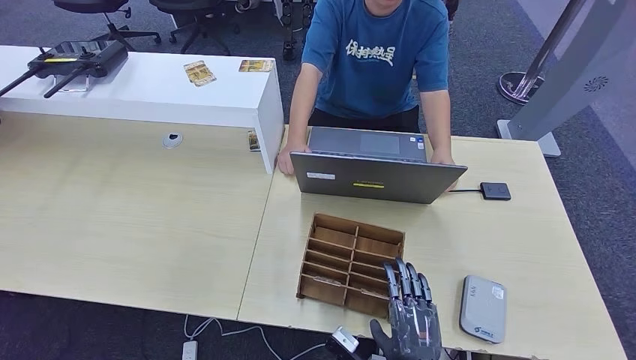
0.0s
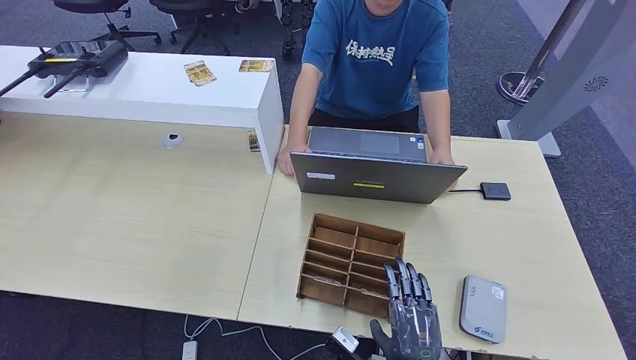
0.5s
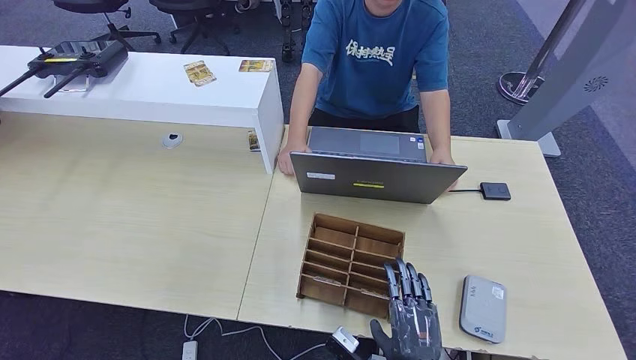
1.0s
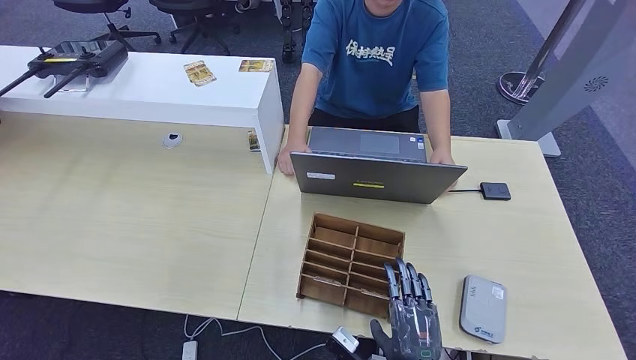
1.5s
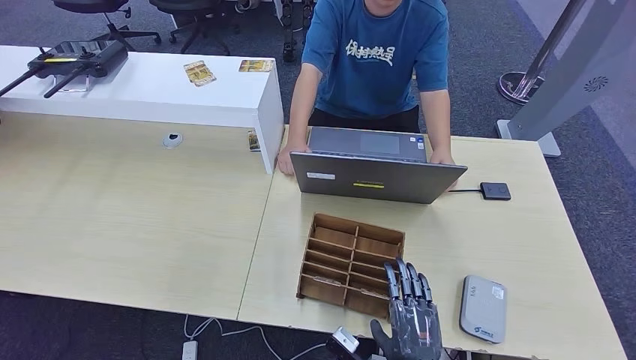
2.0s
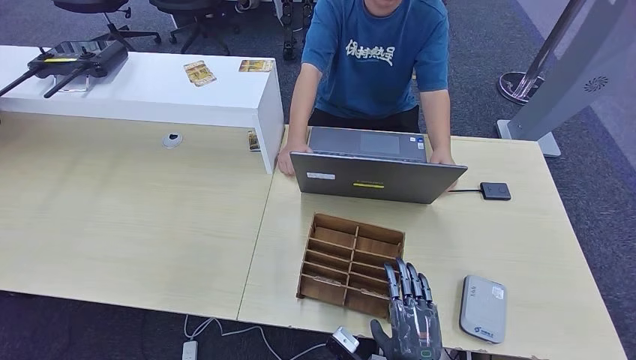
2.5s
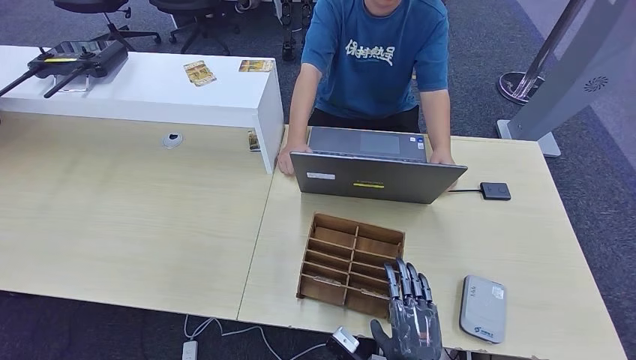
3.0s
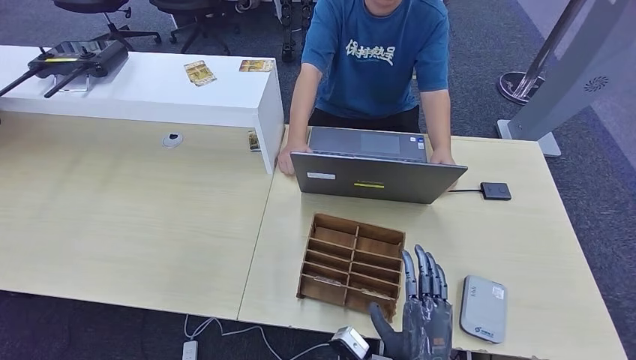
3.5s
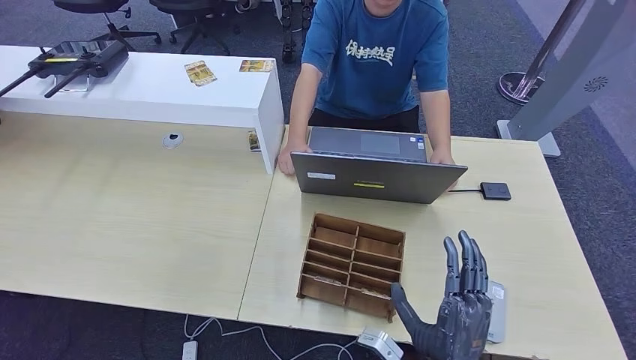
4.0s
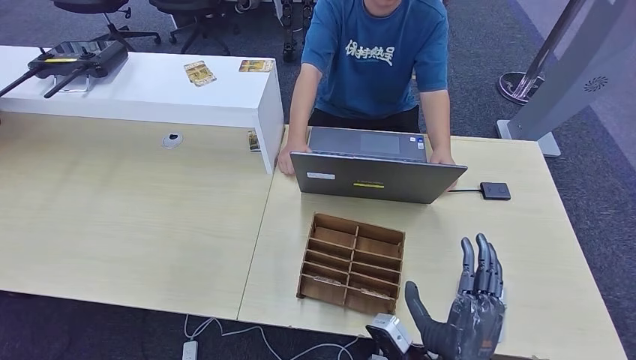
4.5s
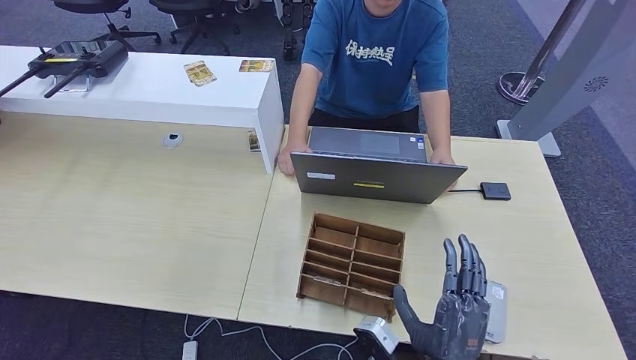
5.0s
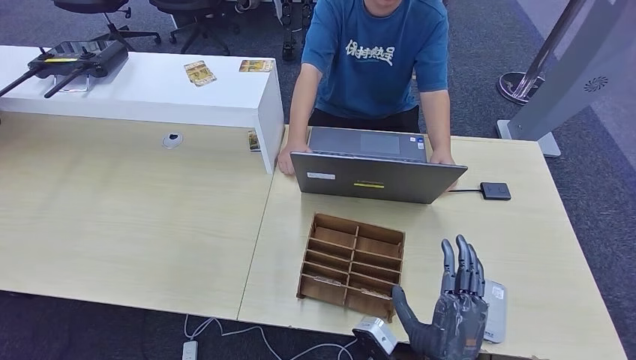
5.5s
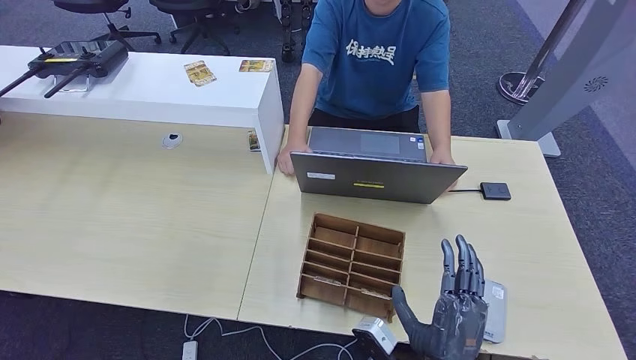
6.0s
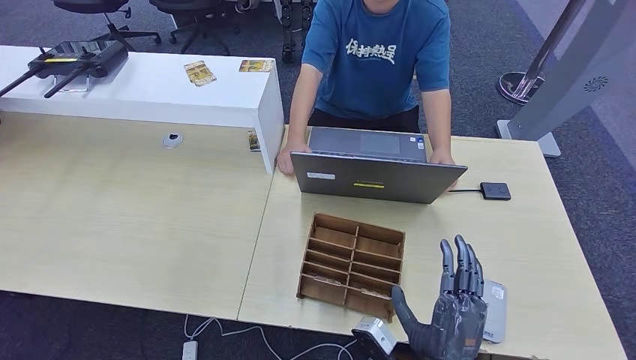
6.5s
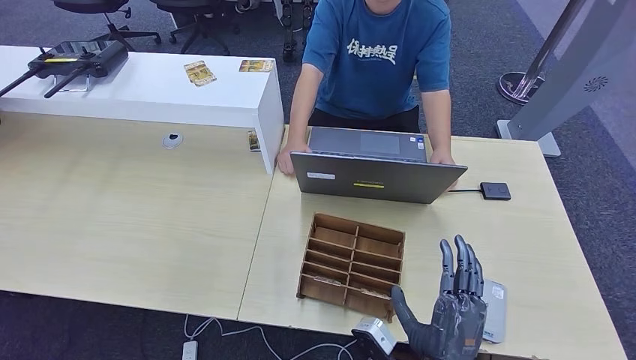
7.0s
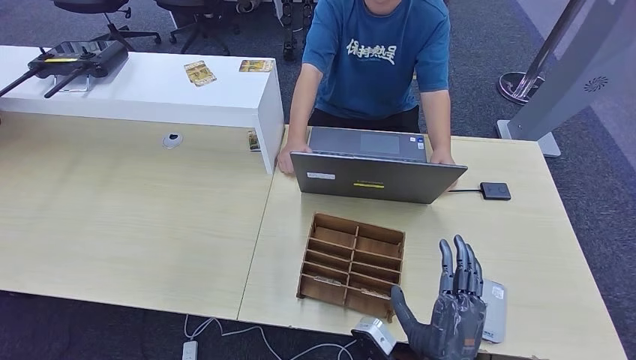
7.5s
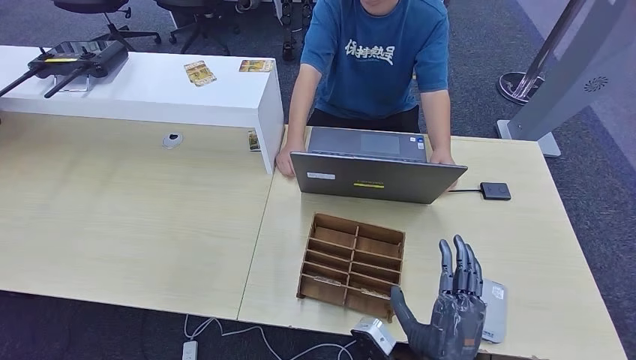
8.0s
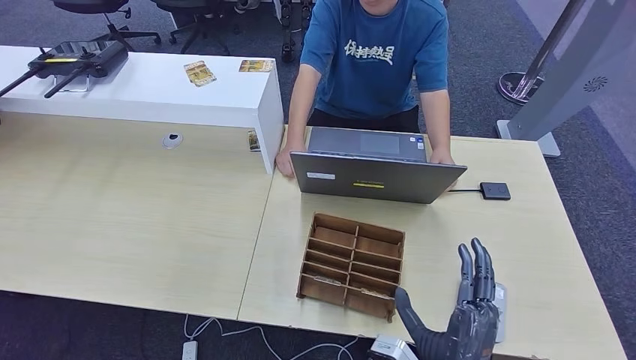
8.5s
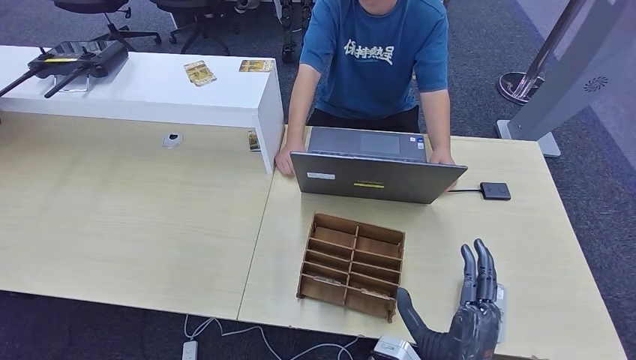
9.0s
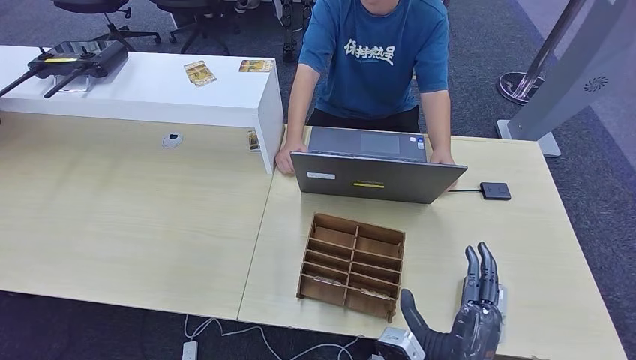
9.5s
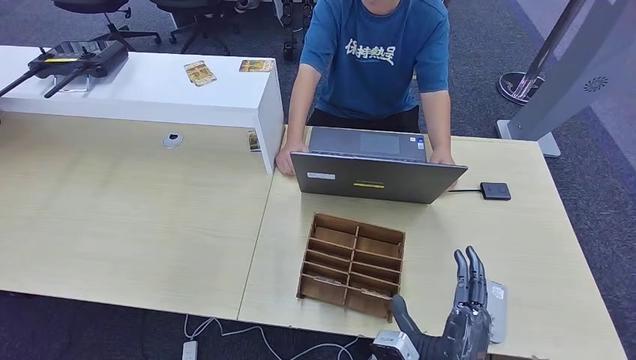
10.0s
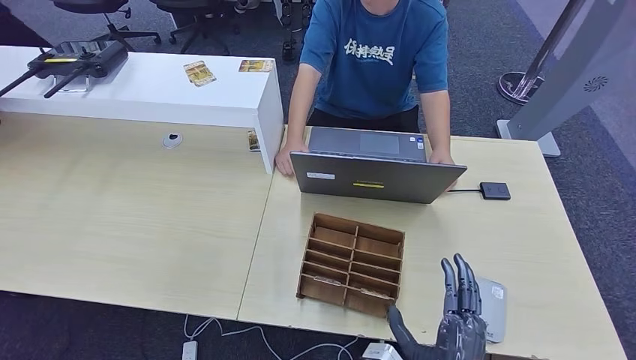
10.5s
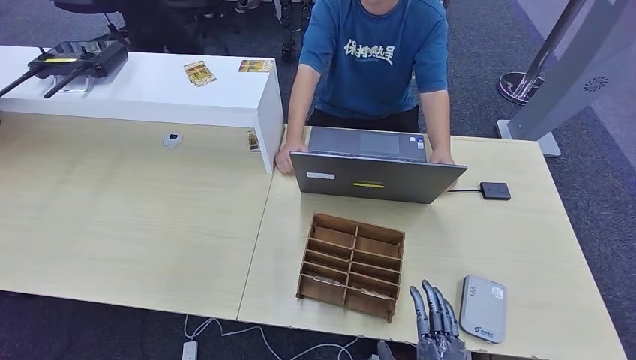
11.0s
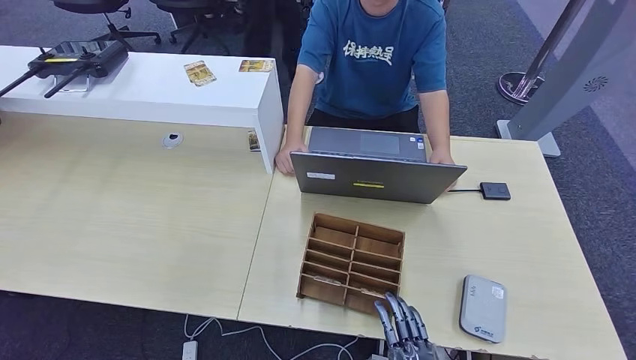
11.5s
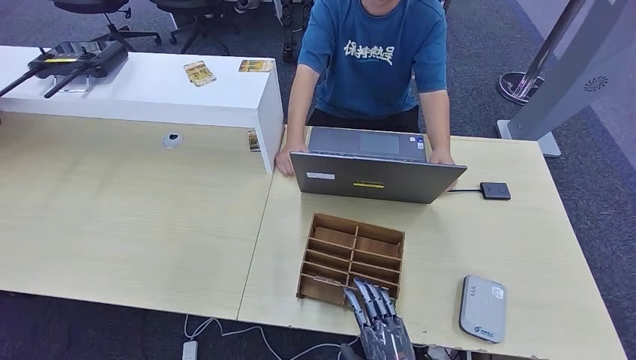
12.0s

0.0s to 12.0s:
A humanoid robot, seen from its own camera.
0.0s to 2.0s: The two hands keep their place.
2.0s to 4.0s: The right hand is displaced upward by some 5 cm.
4.0s to 6.0s: The hands move only a little.
6.0s to 8.0s: The two hands keep their place.
8.0s to 10.0s: There are only small adjustments of the hands.
10.0s to 12.0s: The right hand moves downward, approximately 10 cm.

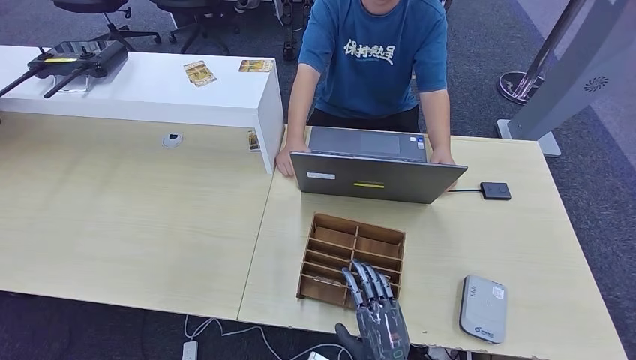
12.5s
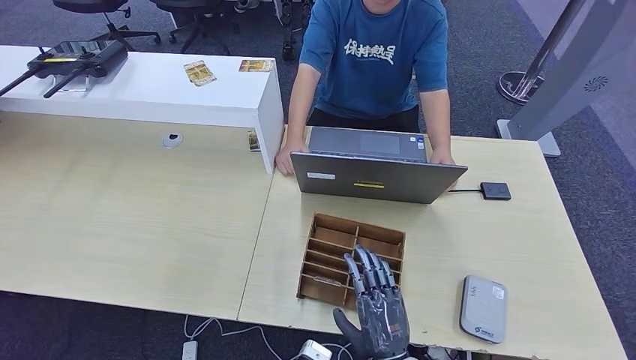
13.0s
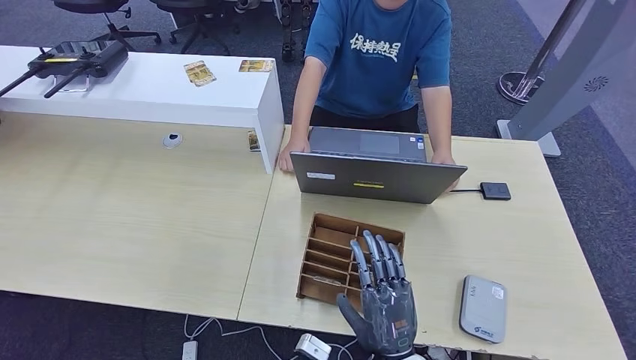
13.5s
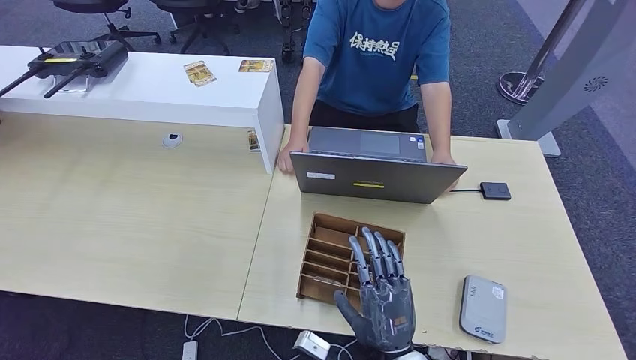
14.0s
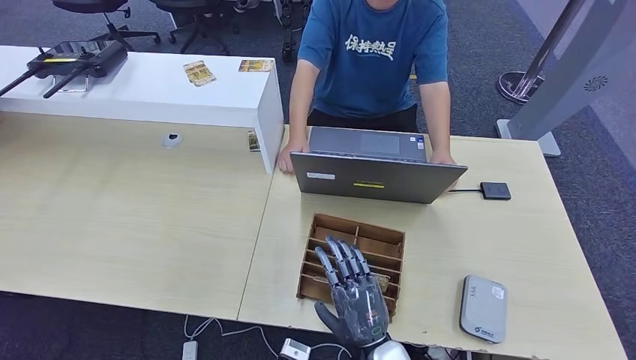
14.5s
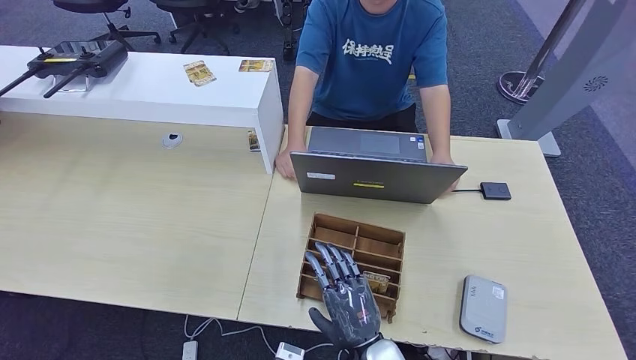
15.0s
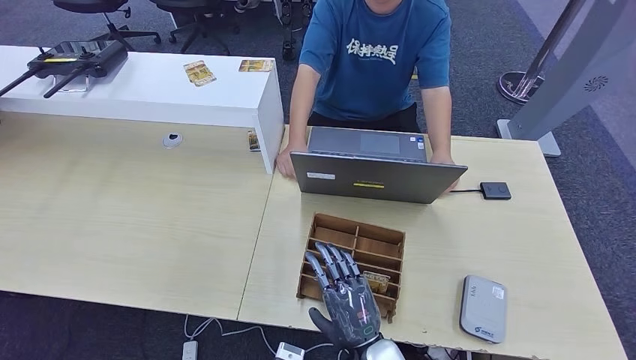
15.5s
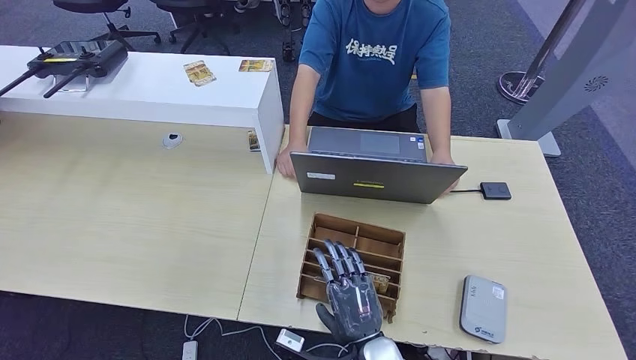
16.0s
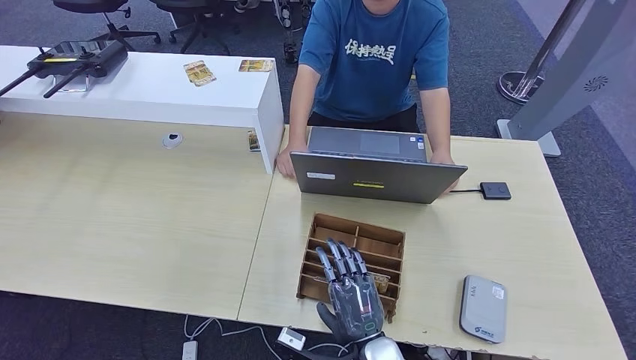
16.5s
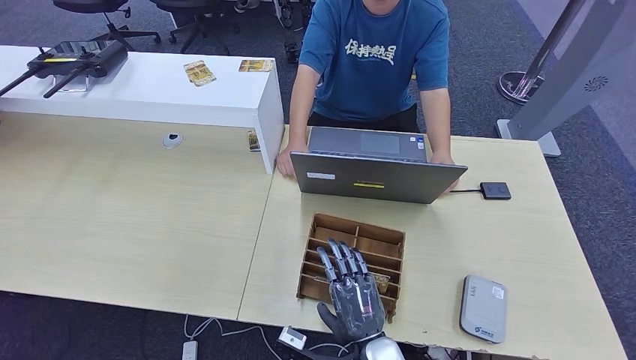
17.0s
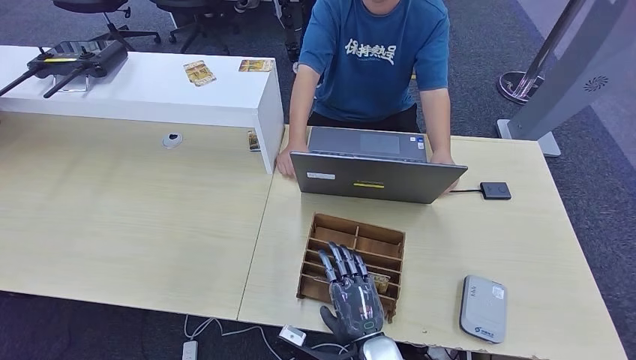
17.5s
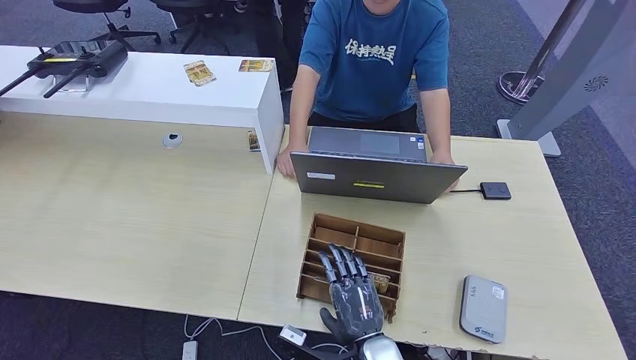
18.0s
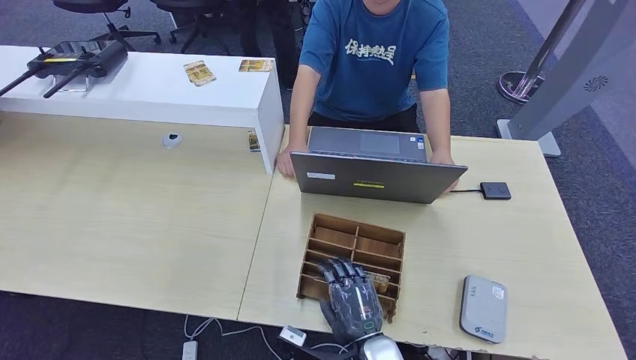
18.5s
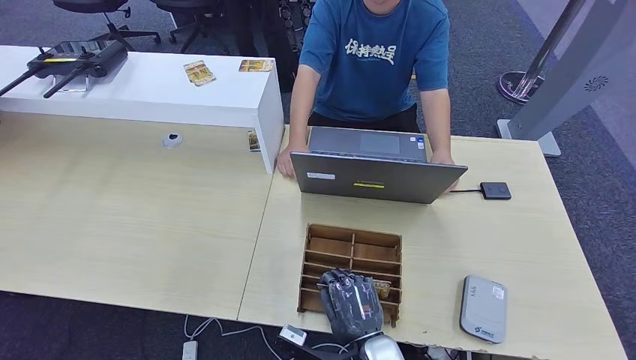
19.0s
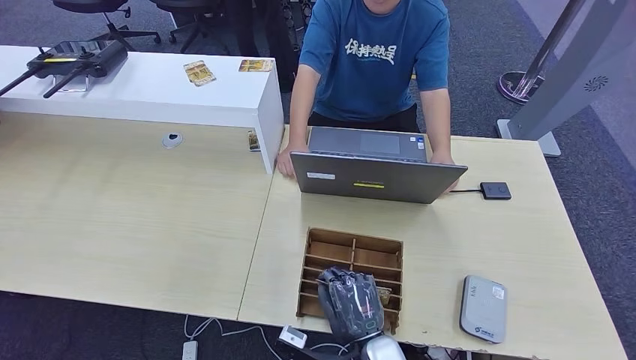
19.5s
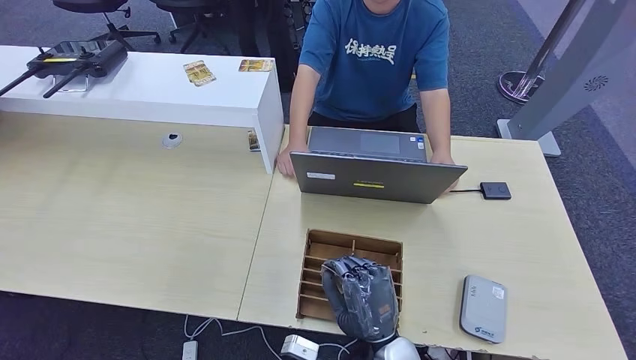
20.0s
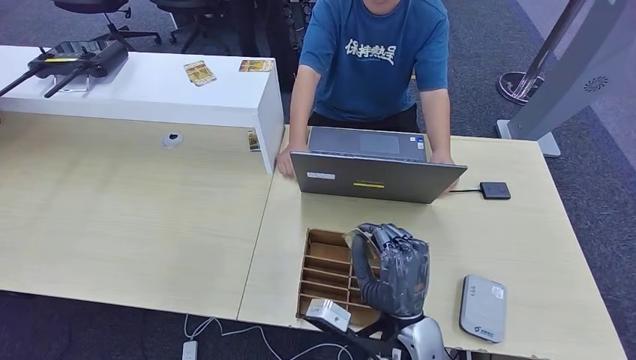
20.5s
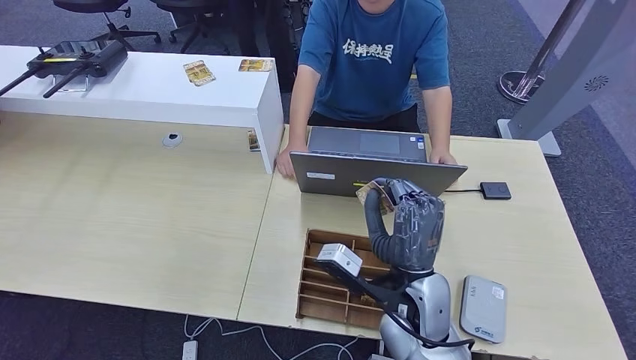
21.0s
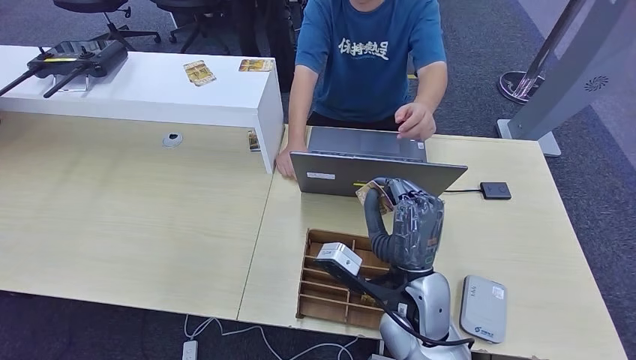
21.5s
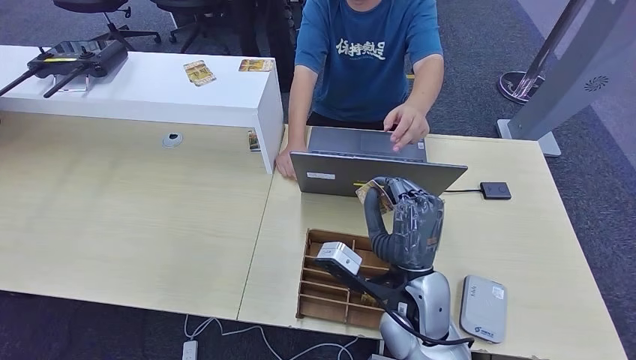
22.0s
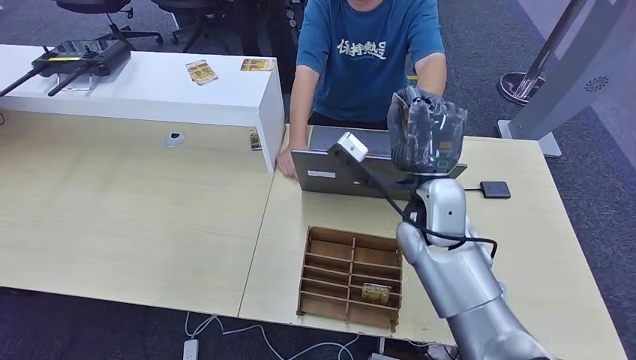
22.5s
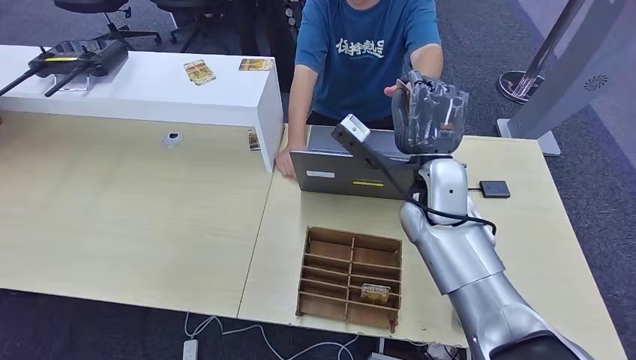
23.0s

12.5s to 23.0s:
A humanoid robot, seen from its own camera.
Step, 19.0s to 21.0s: Pick up the room key from the key card box.
Step, 21.5s to 22.5s: Hand the room key to the person.
12.5s to 14.5s: The right hand moves about 5 cm.
14.5s to 19.0s: There are only small adjustments of the hands.
19.0s to 21.0s: The right hand goes roughly 15 cm upward and forward.
21.0s to 23.0s: The right hand goes some 15 cm forward and upward.
